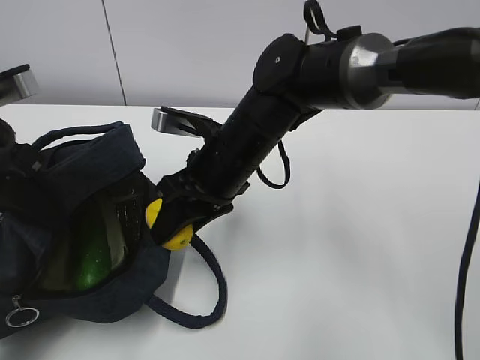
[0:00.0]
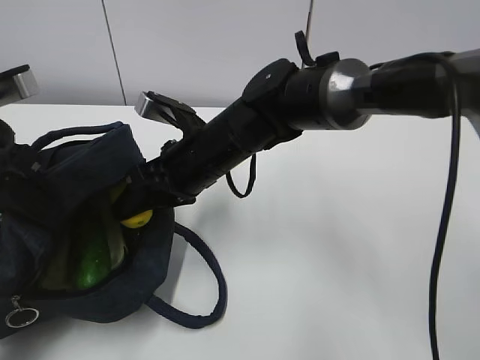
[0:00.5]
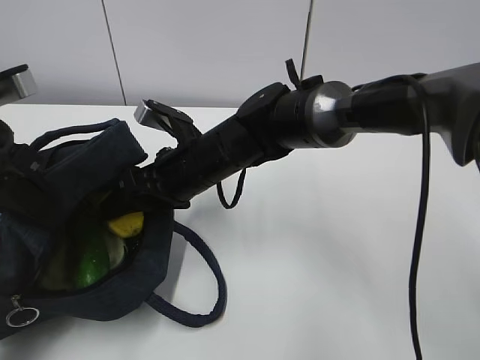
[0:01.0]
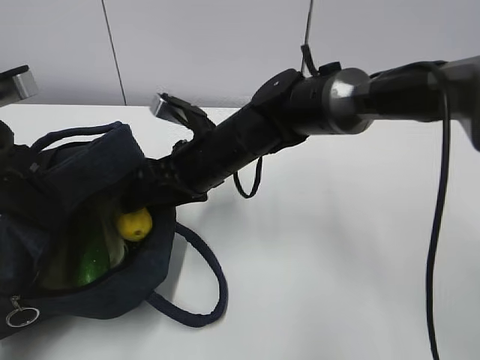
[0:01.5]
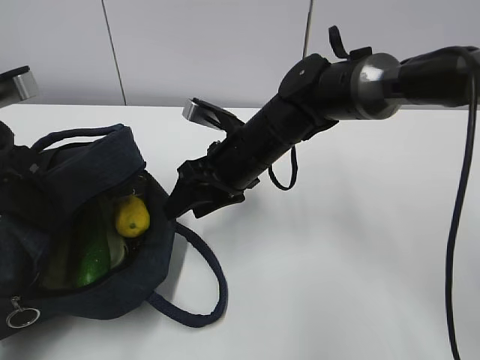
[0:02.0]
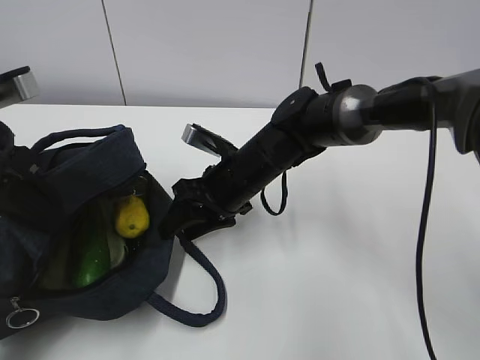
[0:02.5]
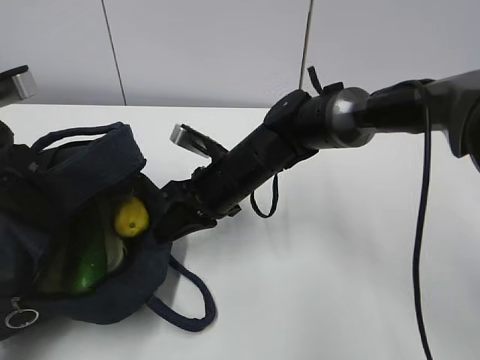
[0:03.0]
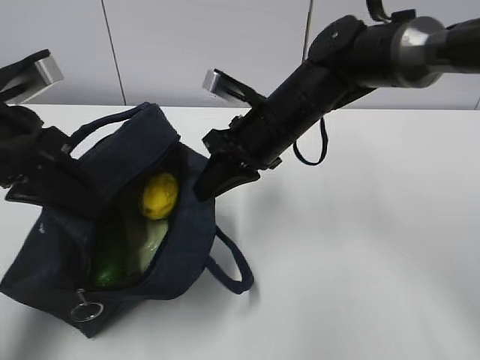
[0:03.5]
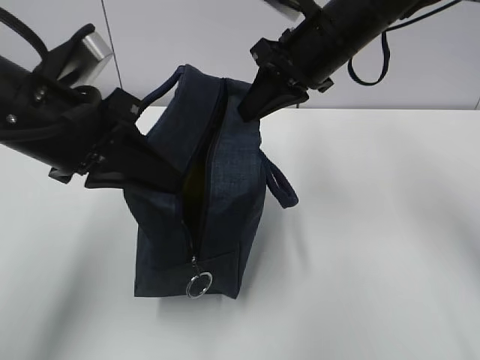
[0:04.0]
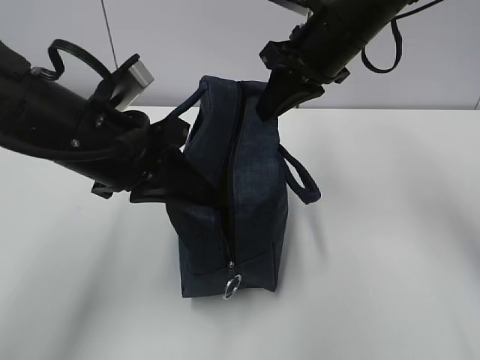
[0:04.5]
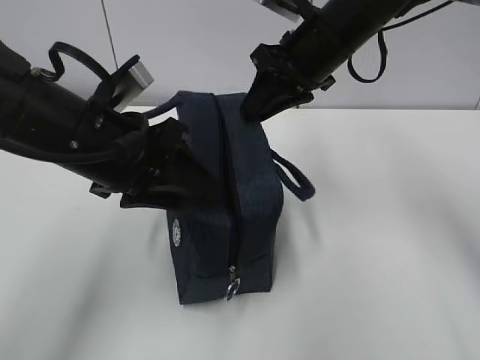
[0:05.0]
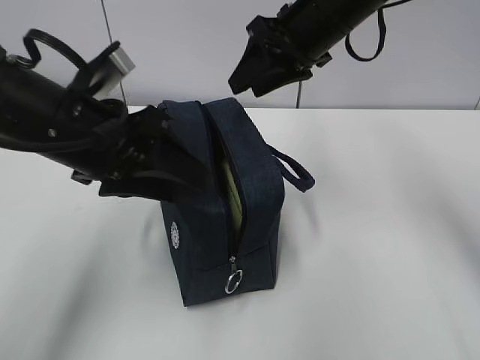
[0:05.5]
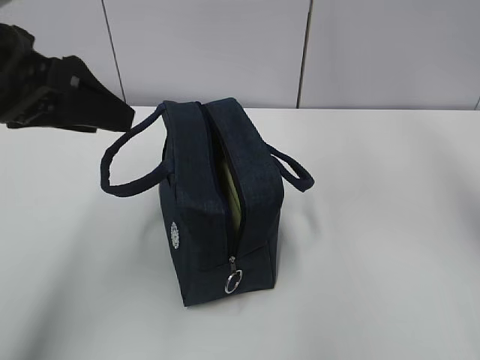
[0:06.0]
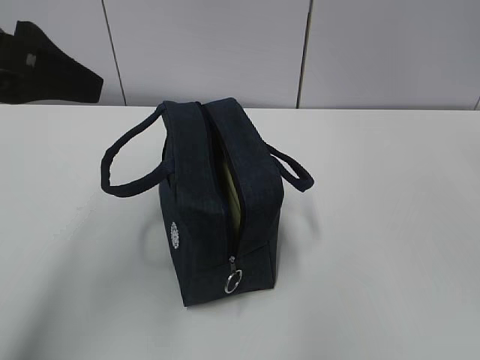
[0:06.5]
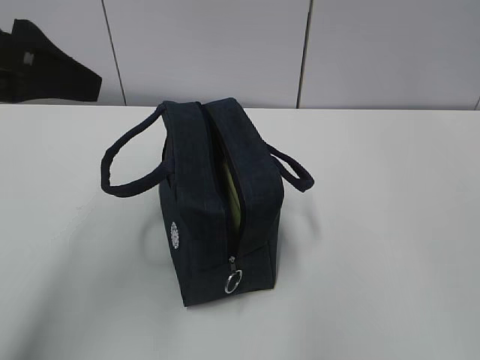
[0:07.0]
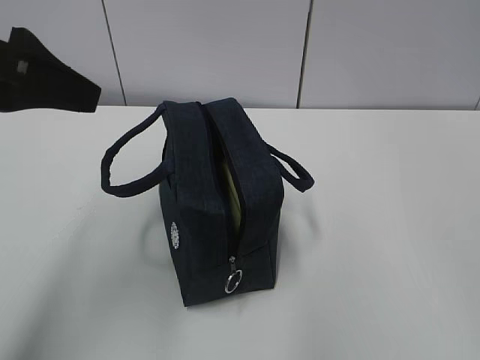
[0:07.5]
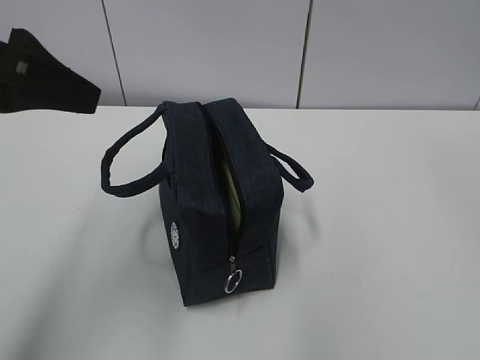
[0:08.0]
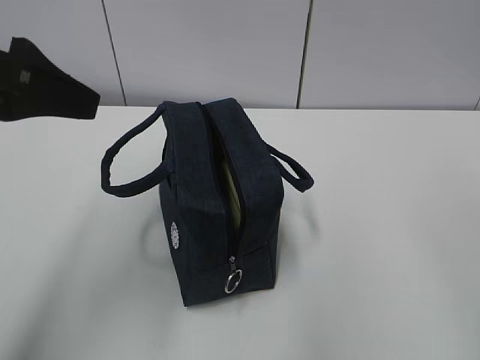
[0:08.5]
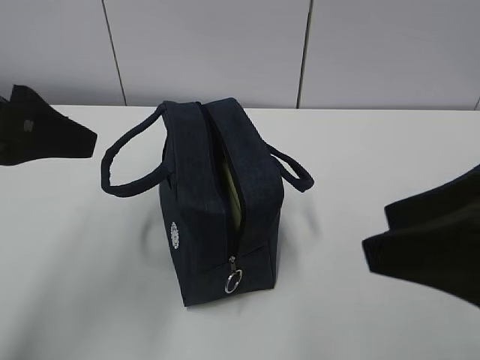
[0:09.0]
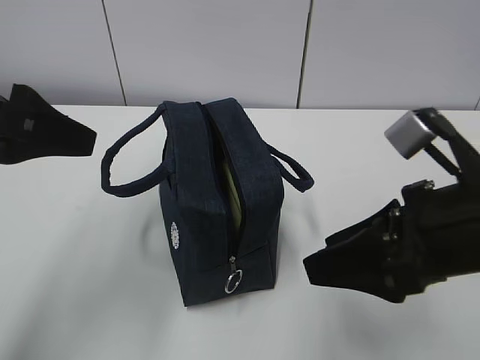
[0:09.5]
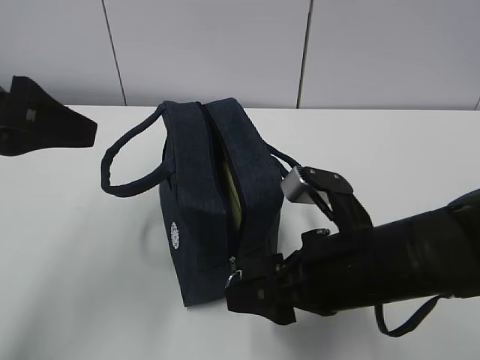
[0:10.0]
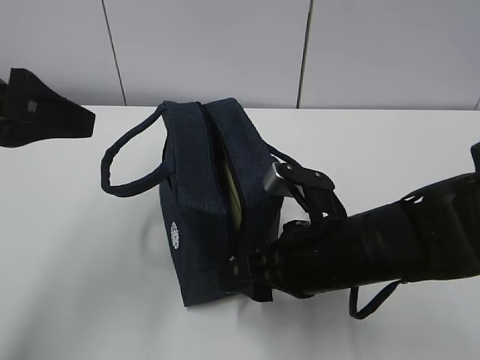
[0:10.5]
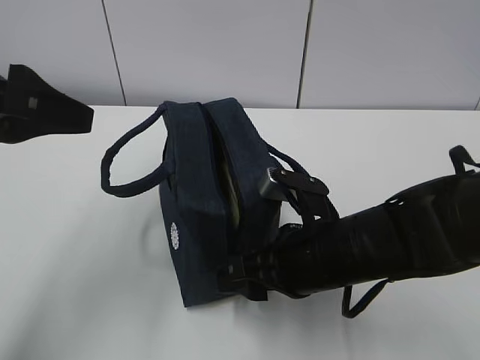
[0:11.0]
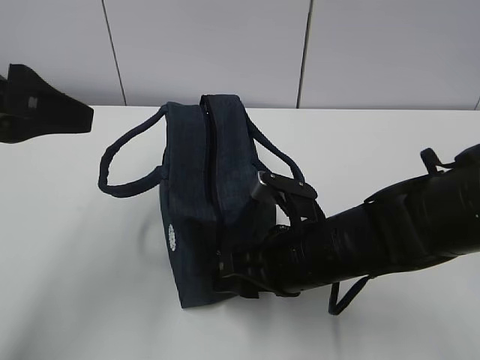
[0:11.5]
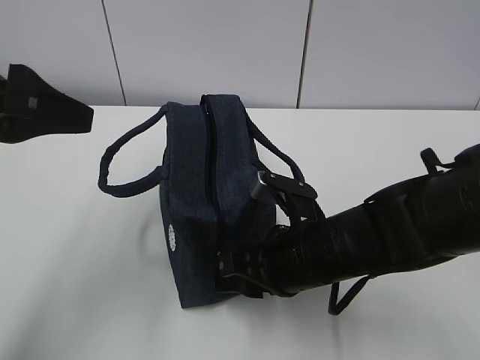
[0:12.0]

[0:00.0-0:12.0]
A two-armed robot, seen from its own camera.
0.0 to 2.0 s: The right gripper ends up about 5 cm from where it was.
2.0 to 4.0 s: The left gripper shifts about 10 cm to the right. The right gripper travels upward and to the right by some 15 cm, and closes.
4.0 to 6.0 s: The right gripper shifts some 15 cm upward, and opens its fingers, while the left gripper heads upward, covering approximately 5 cm, and opens.
8.0 to 10.0 s: The right gripper goes approximately 40 cm downward and forward.
10.0 to 12.0 s: The right gripper moves roughly 5 cm.

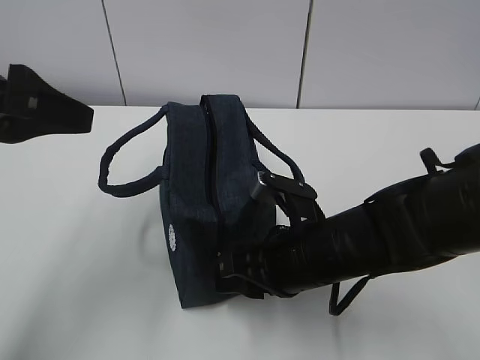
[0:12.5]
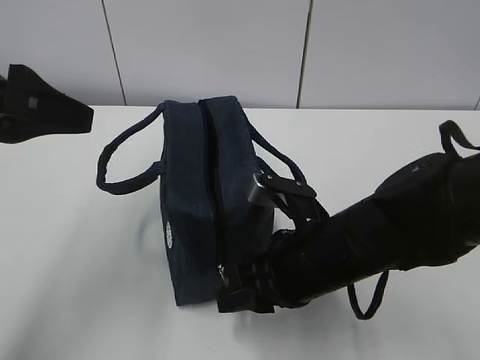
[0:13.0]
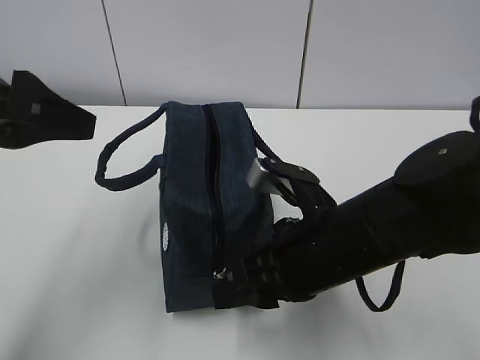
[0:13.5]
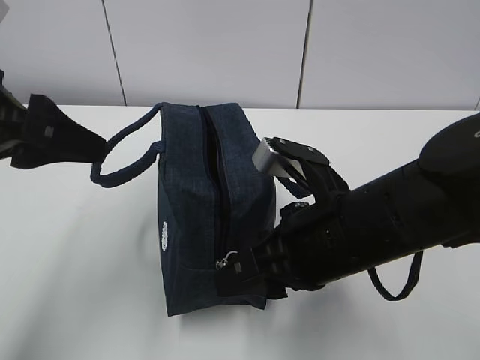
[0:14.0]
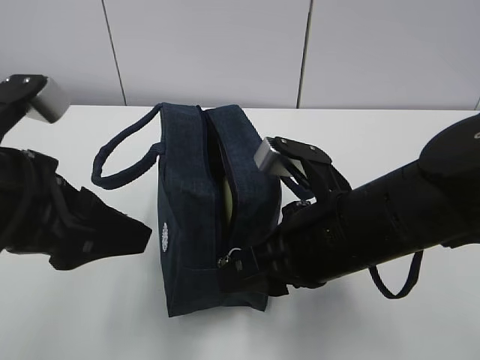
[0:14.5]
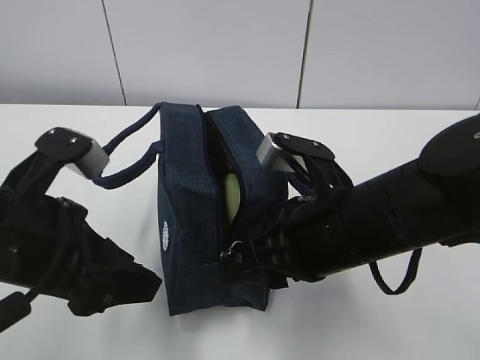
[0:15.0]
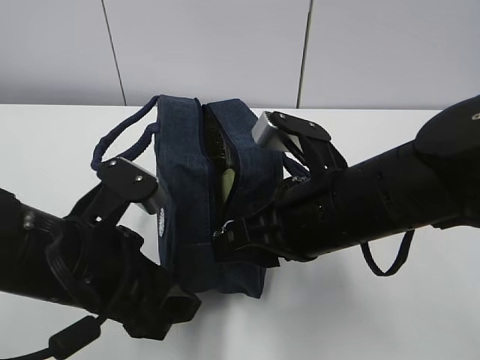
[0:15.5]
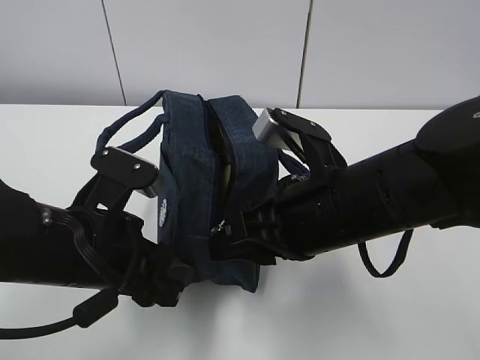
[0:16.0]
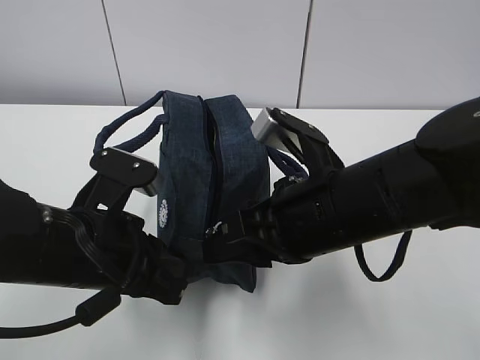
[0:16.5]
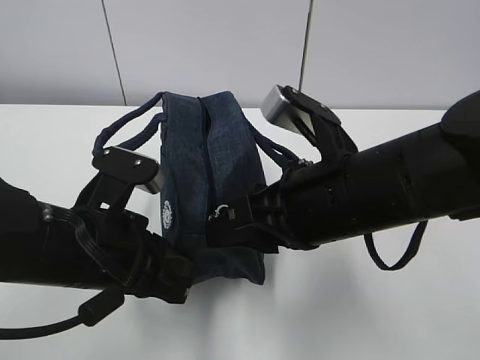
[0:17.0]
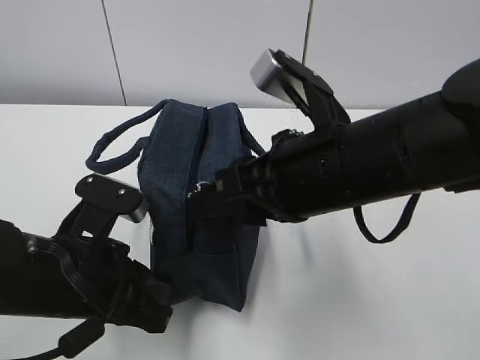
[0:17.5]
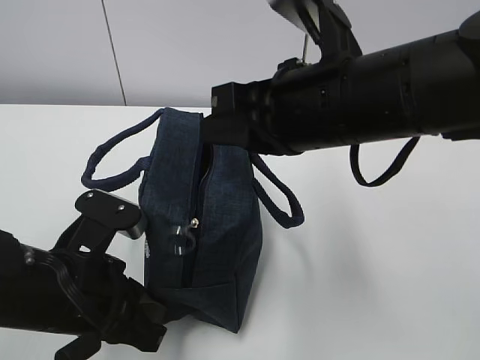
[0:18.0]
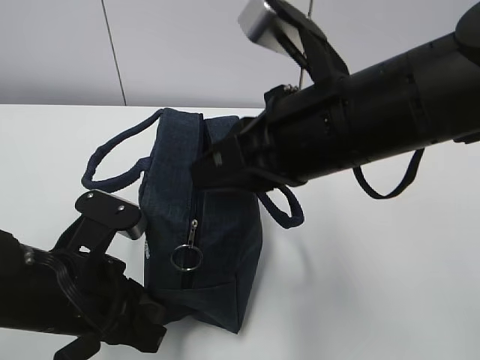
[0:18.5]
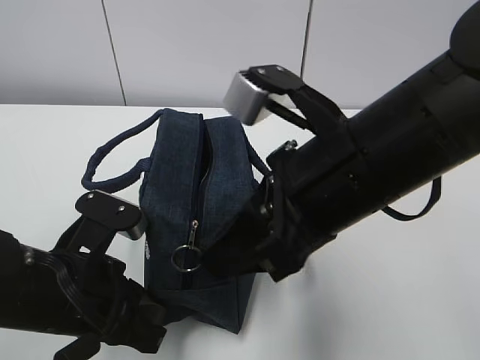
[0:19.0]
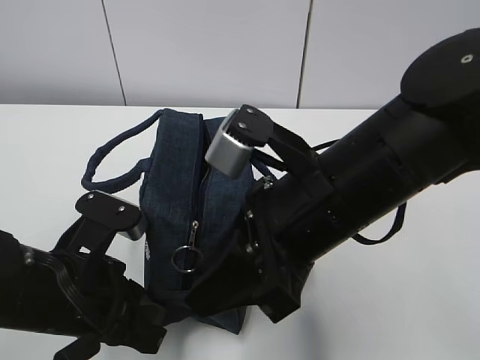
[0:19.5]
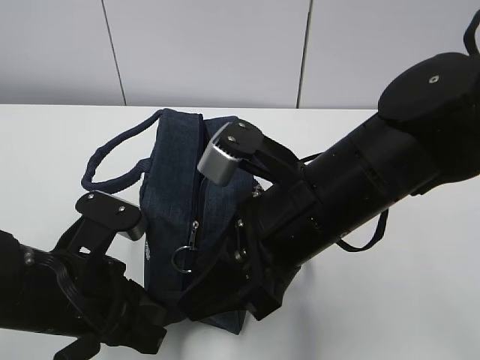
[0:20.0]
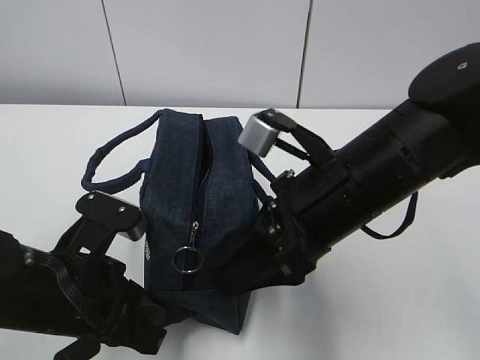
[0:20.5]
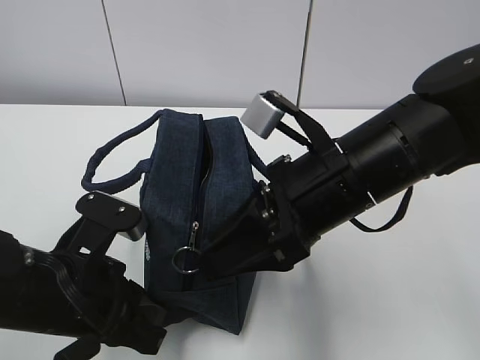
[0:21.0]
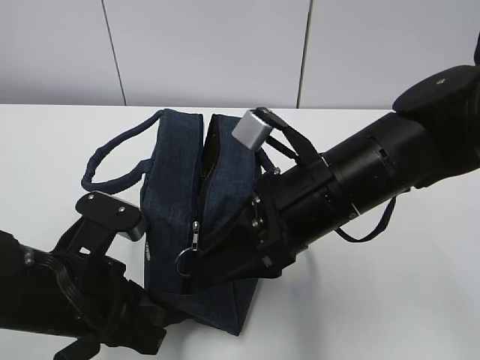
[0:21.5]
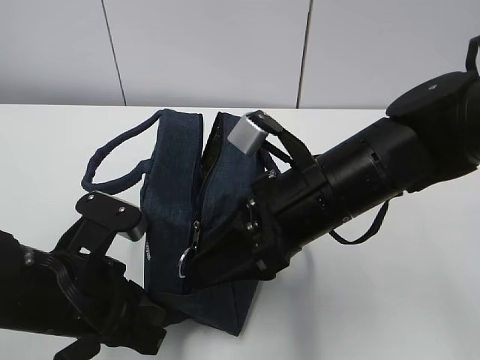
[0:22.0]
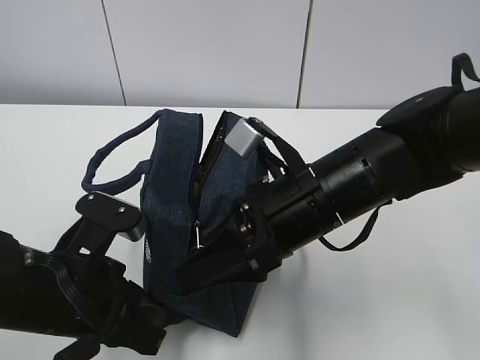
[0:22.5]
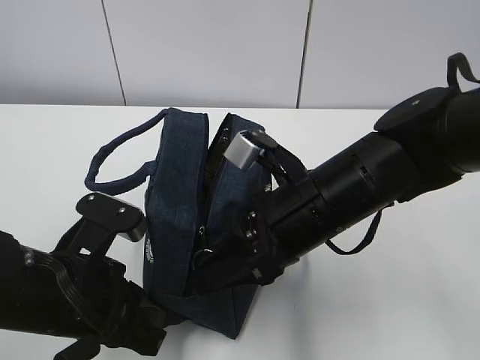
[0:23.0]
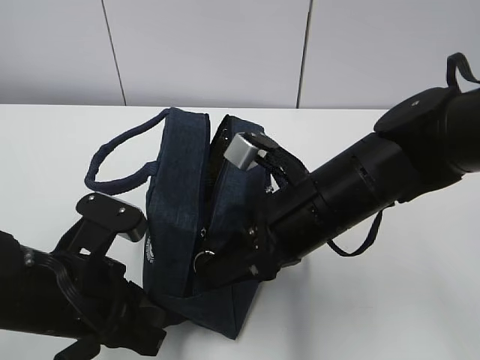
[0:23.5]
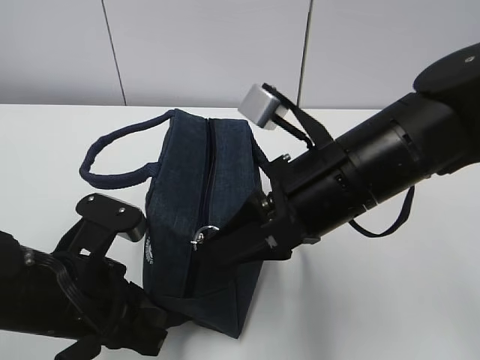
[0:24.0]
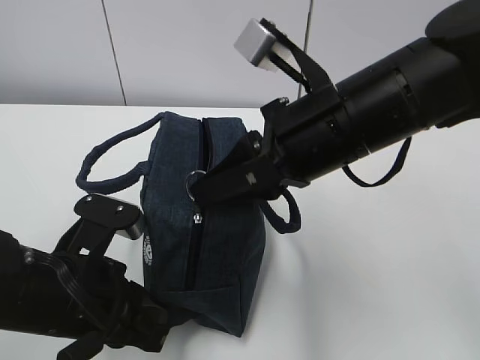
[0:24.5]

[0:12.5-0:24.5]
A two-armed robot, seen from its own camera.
Step, 12.5 to 18.0 s: Grab the lunch bag with your left hand.
Step, 19.0 to 23.0 s: Pull the zipper with your right hand.
12.5 to 14.5 s: The right gripper heads upward, covering some 5 cm, while the left gripper goes about 5 cm downward.
14.5 to 16.5 s: The left gripper is displaced downward by roughly 10 cm, and closes.
16.5 to 18.5 s: The right gripper moves upward, roughly 5 cm, and closes its fingers.
18.5 to 20.5 s: The right gripper heads downward, covering roughly 5 cm, and opens.
20.5 to 22.5 s: The grippers move only a little.
22.5 to 24.5 s: The right gripper shifts about 5 cm upward, and closes up.

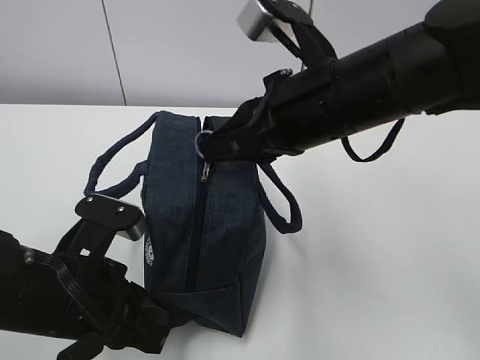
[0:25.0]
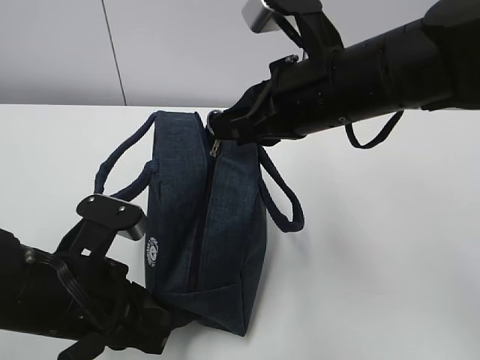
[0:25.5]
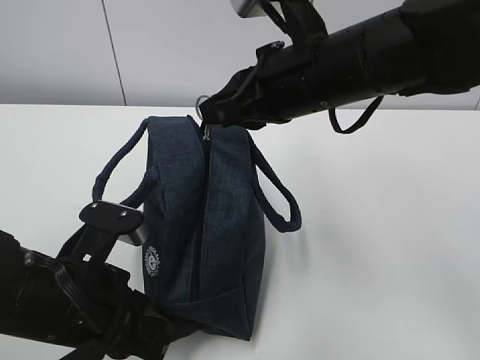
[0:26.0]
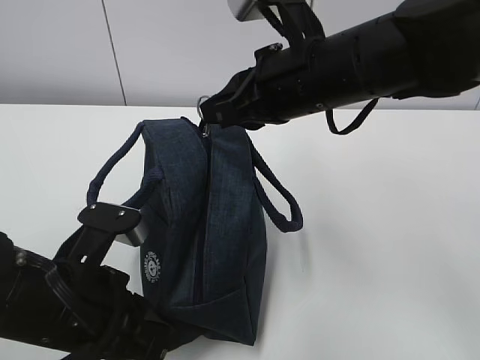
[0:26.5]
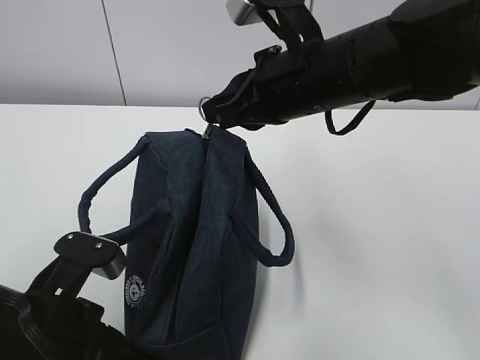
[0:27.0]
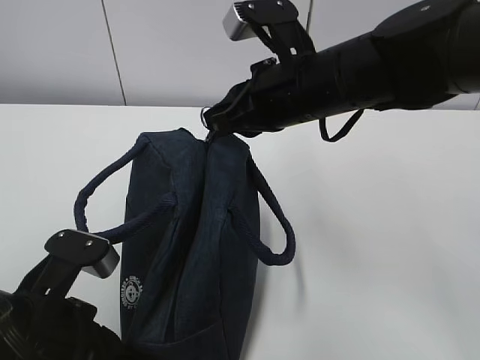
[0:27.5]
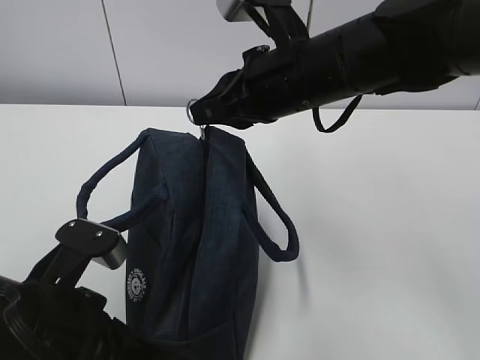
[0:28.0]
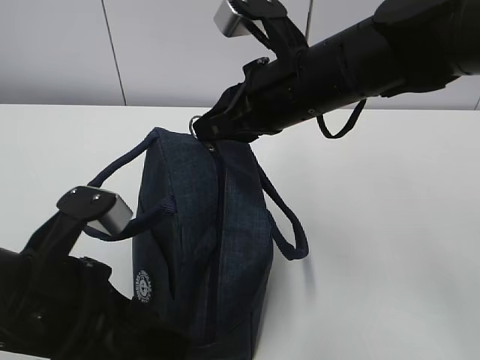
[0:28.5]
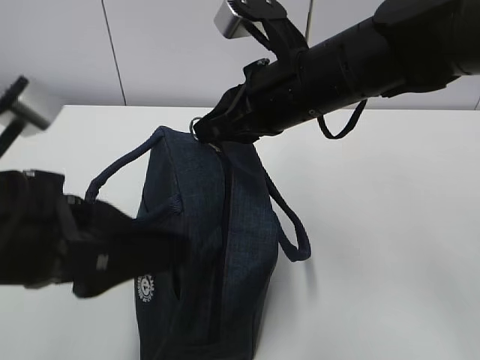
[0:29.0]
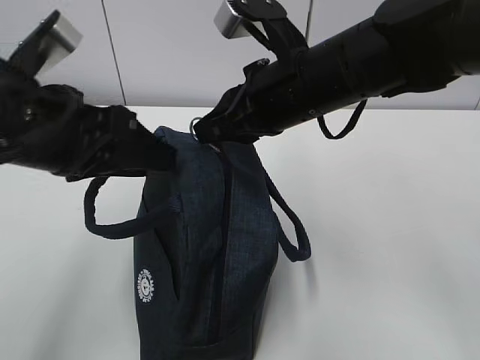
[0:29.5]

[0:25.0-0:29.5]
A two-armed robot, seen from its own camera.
27.0 to 29.5 s: The left gripper is displaced upward and forward by some 15 cm, and opens its fingers.
